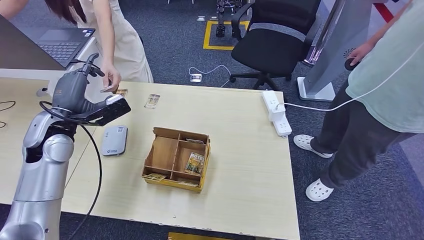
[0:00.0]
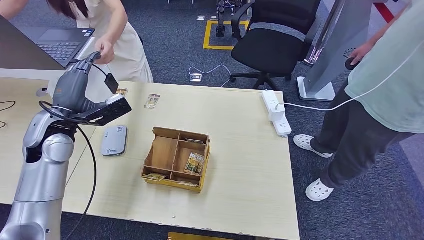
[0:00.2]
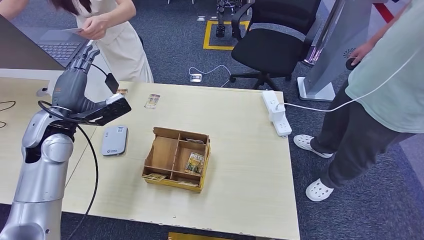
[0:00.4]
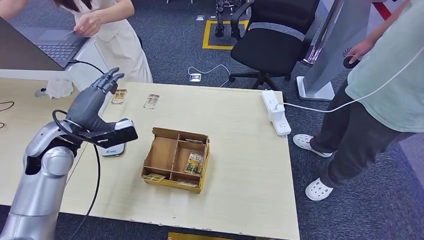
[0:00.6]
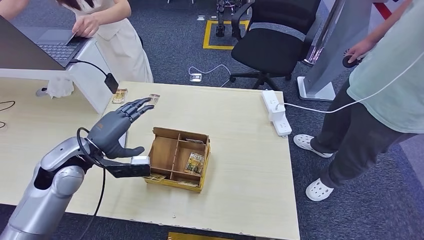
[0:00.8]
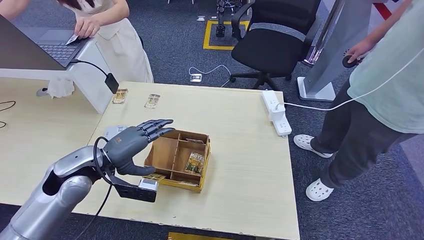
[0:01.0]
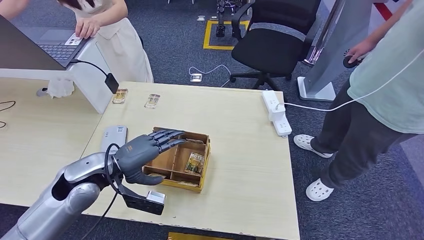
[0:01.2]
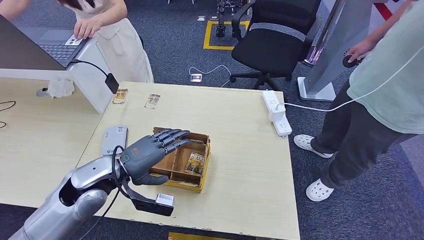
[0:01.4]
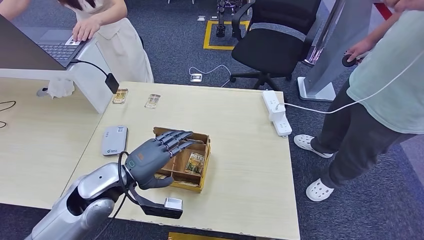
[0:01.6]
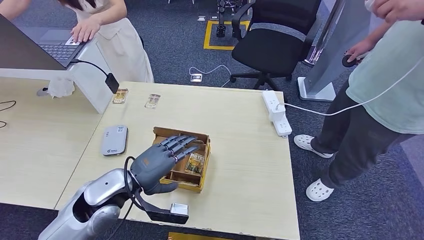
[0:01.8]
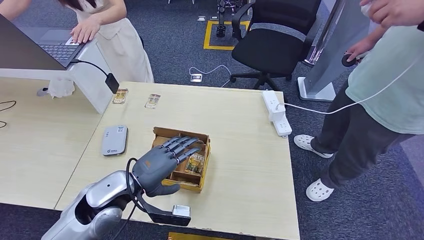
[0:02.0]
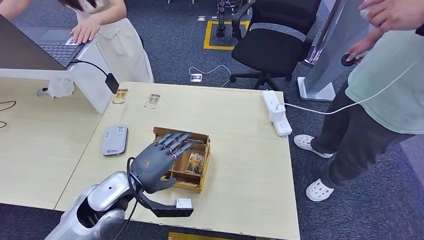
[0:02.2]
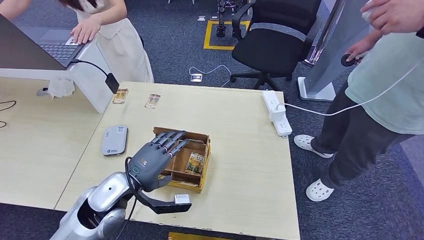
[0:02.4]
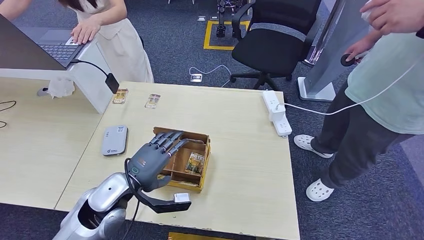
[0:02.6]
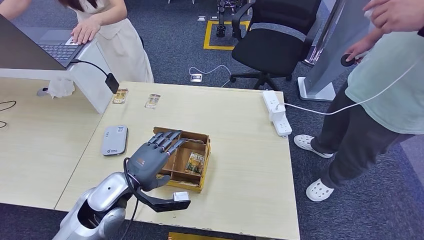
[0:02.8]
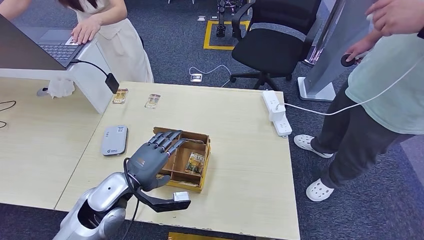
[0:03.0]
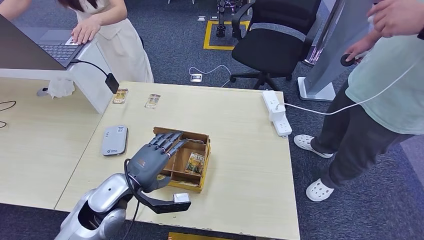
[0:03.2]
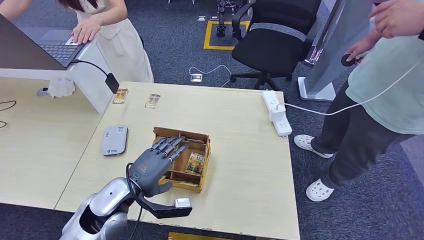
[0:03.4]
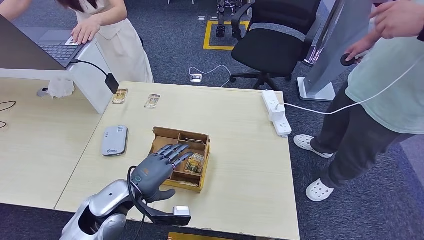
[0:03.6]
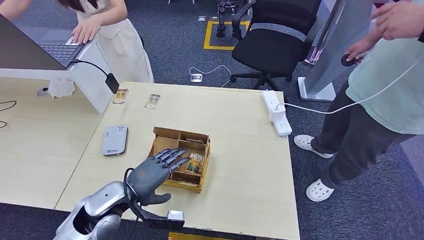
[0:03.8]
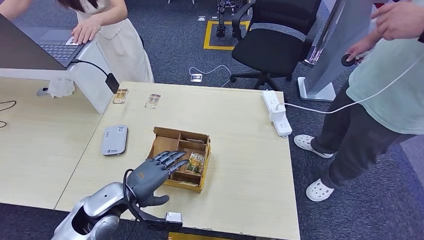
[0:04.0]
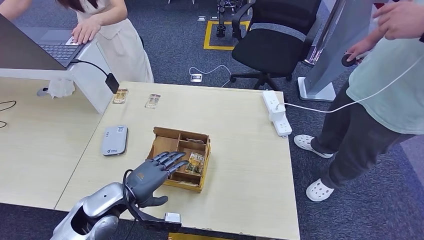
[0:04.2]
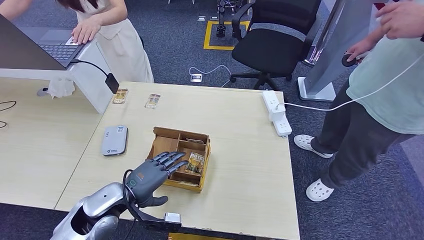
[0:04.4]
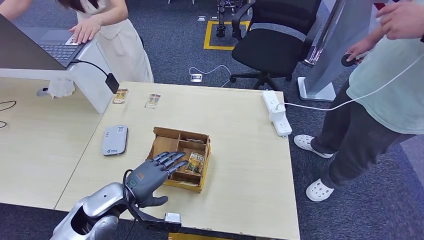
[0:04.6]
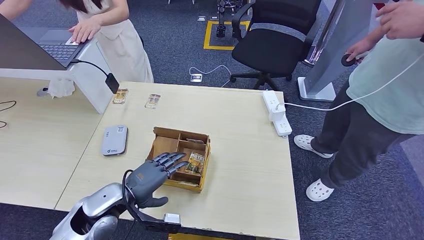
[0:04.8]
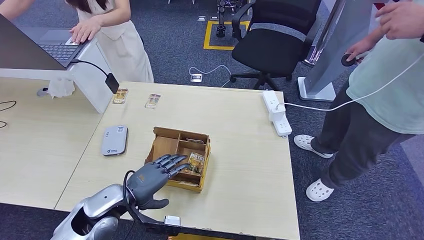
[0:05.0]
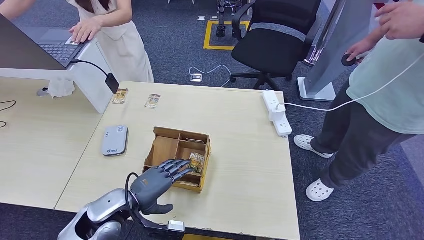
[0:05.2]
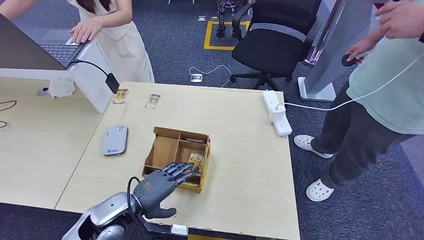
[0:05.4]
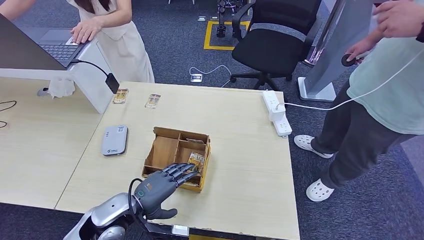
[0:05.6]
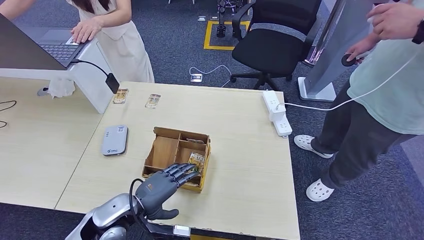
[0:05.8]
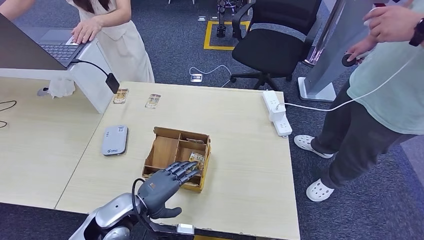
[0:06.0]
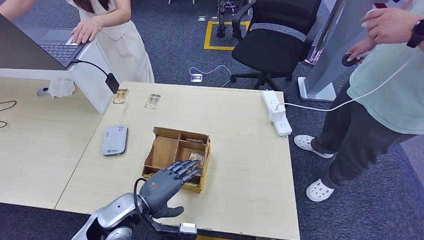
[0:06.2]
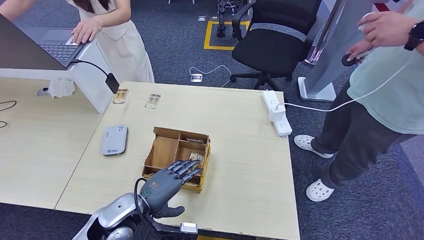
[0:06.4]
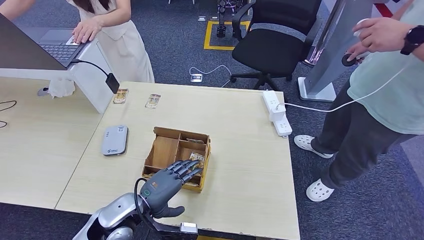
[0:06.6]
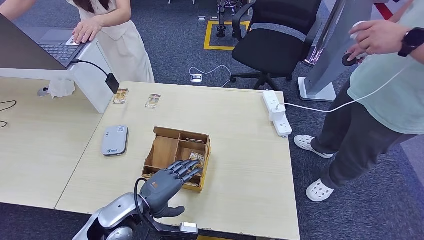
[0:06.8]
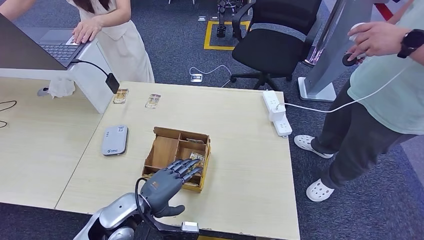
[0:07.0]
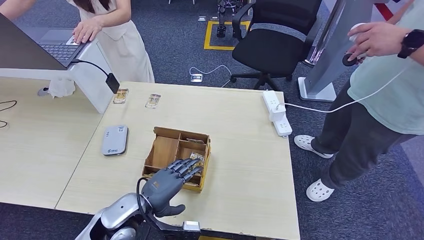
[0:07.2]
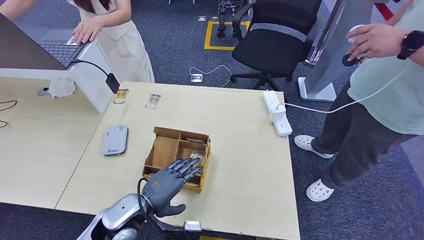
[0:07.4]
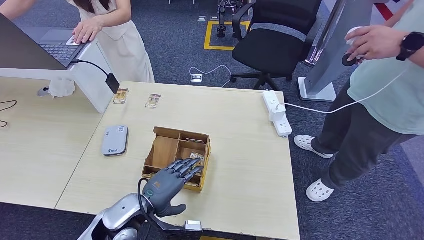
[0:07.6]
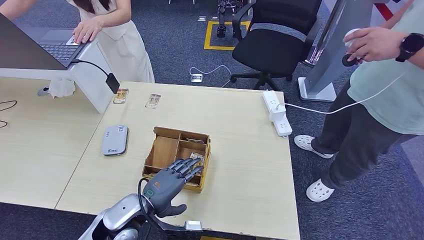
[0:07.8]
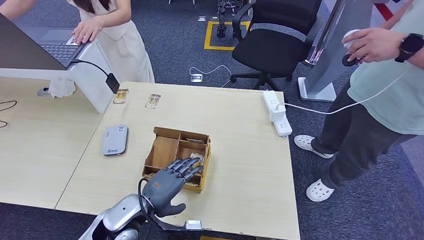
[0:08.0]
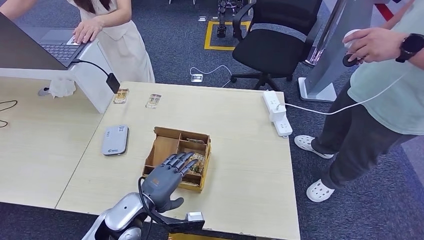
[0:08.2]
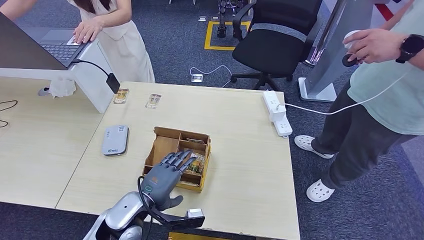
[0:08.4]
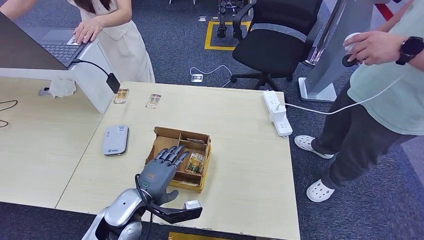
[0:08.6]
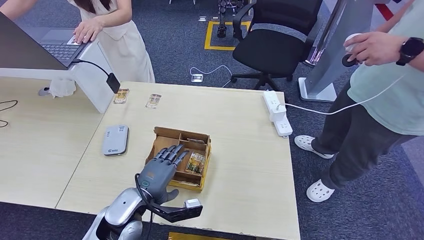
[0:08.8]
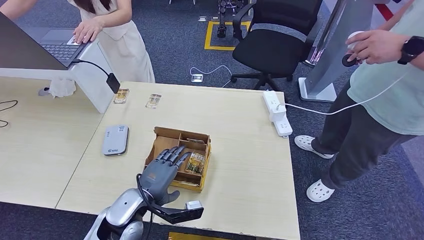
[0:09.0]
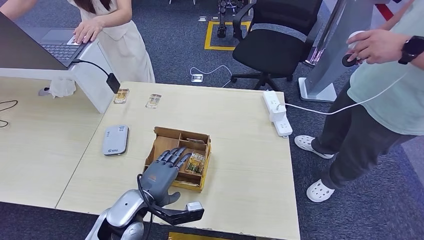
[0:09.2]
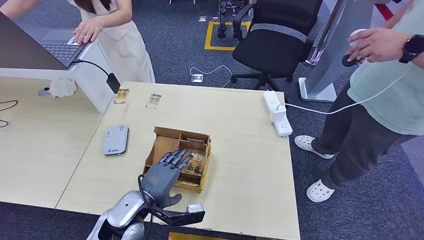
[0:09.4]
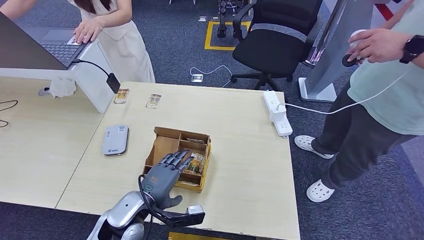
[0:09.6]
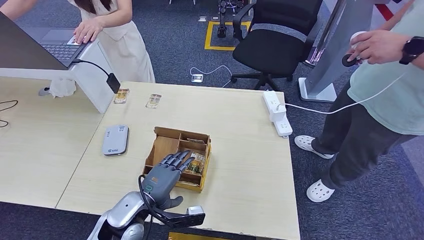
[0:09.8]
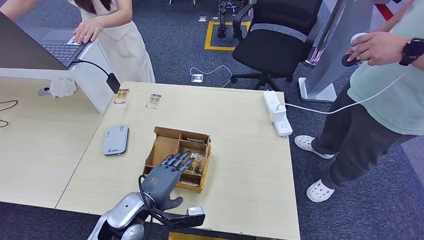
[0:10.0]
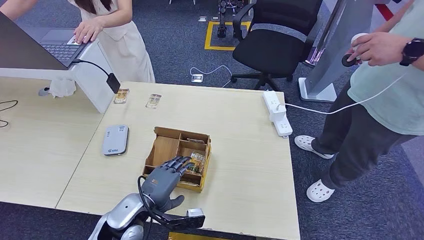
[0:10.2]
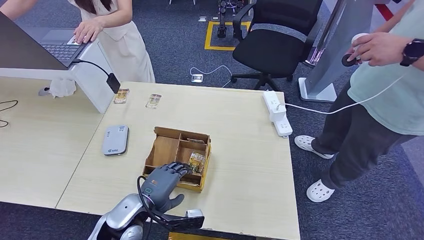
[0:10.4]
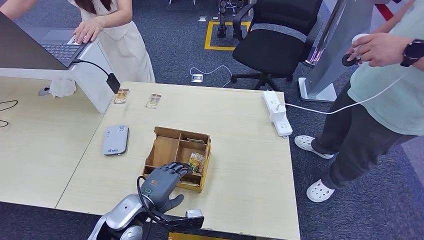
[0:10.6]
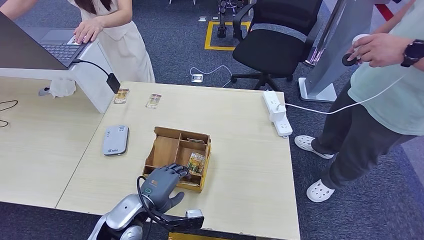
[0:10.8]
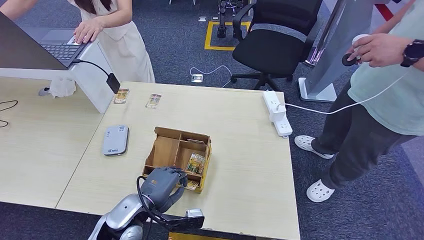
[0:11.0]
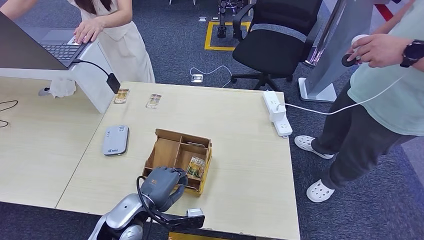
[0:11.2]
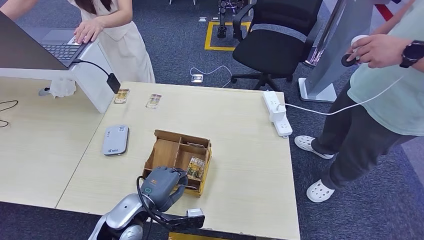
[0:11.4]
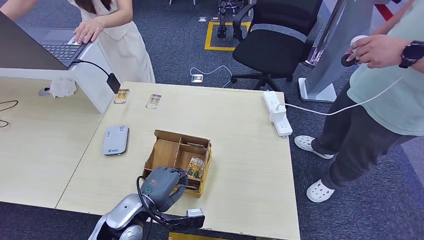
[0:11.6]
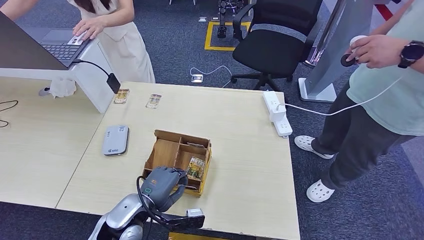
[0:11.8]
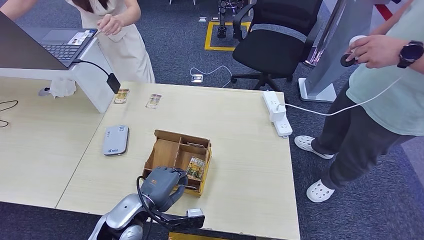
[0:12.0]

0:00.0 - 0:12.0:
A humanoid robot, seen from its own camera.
Step, 0:00.0 - 0:02.6: Hand the ID card to the person.
0:00.0 - 0:01.6: The left hand is displaced to the right, backward and downward by some 15 cm.
0:01.6 - 0:04.4: The hands make only small movements.
0:04.4 - 0:10.4: There are only small adjustments of the hands.
0:10.4 - 0:12.0: Neither hand changes place.

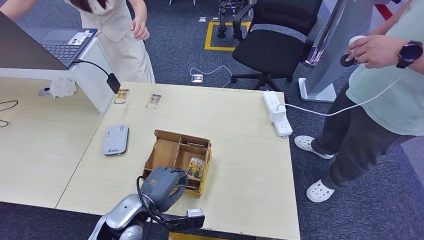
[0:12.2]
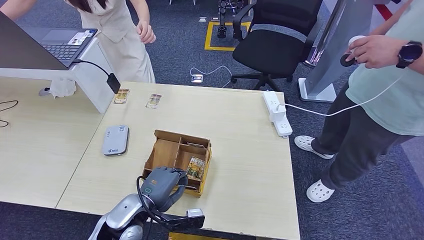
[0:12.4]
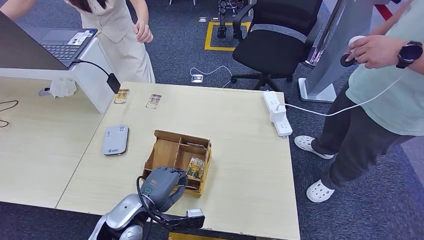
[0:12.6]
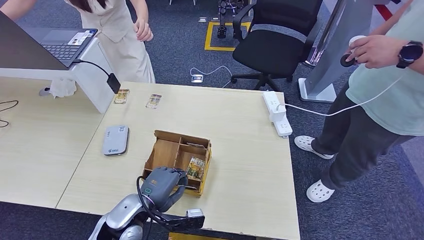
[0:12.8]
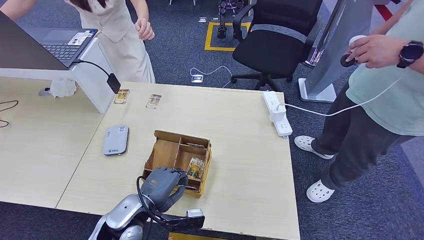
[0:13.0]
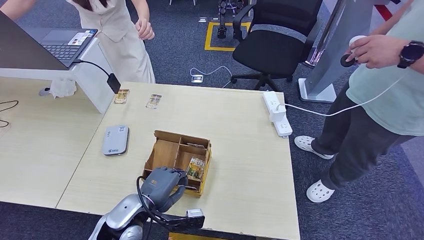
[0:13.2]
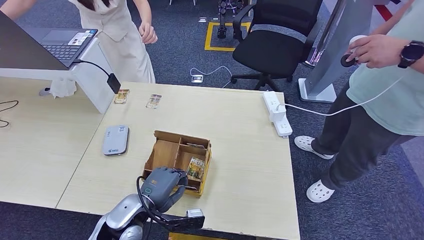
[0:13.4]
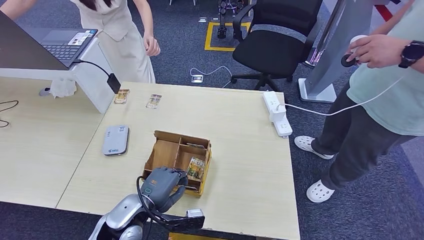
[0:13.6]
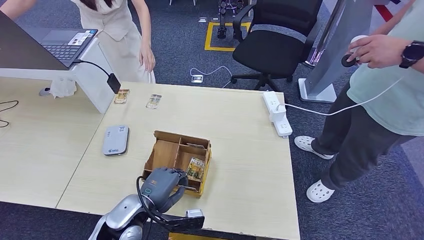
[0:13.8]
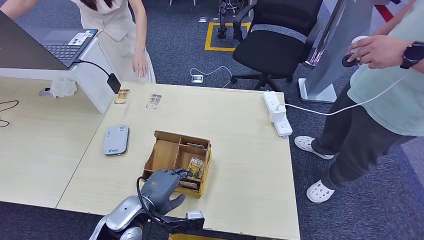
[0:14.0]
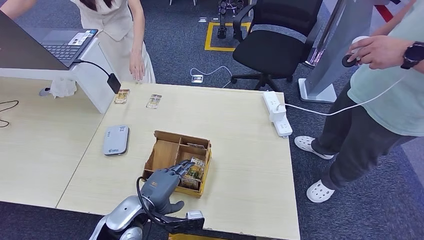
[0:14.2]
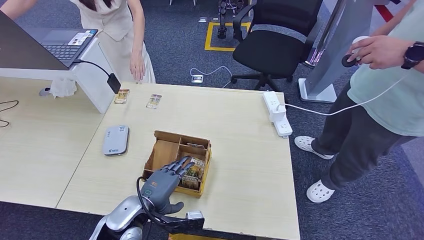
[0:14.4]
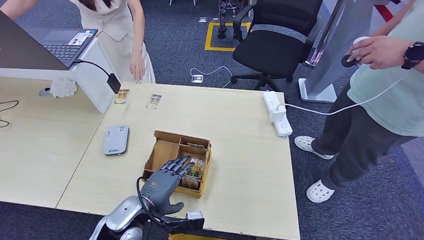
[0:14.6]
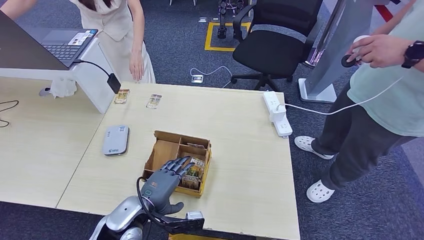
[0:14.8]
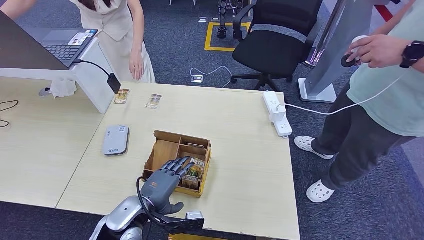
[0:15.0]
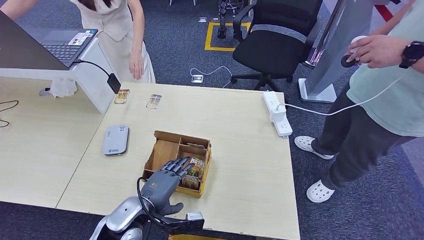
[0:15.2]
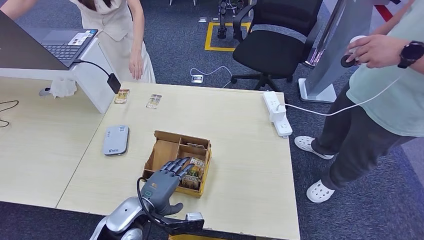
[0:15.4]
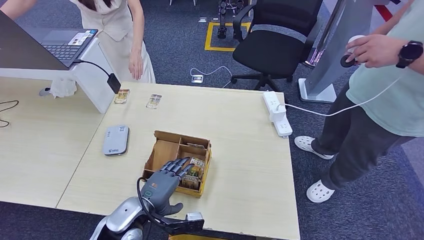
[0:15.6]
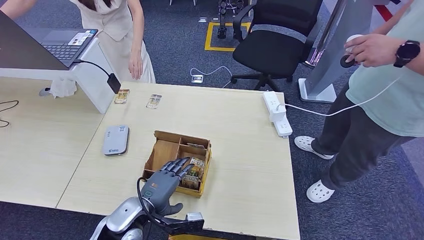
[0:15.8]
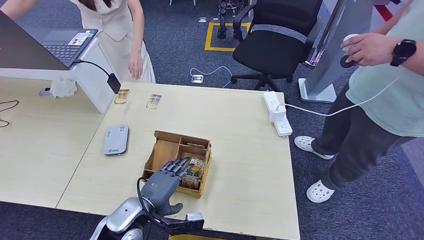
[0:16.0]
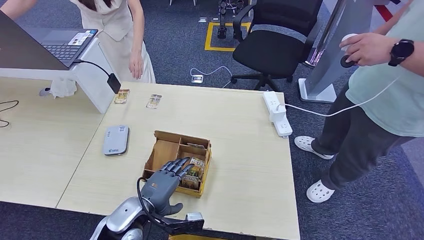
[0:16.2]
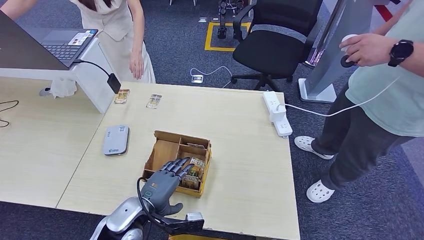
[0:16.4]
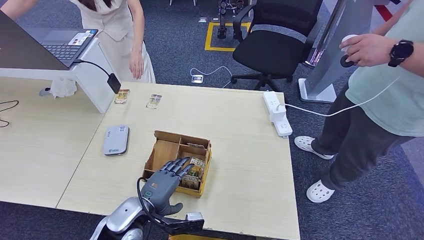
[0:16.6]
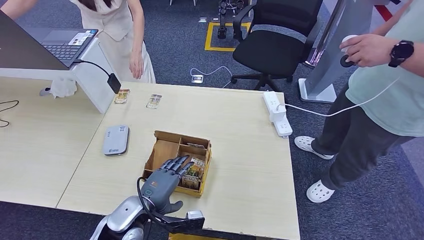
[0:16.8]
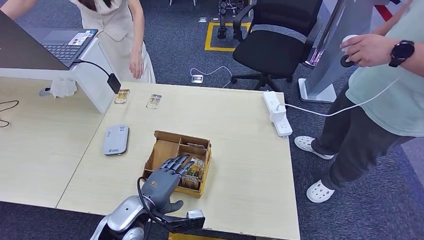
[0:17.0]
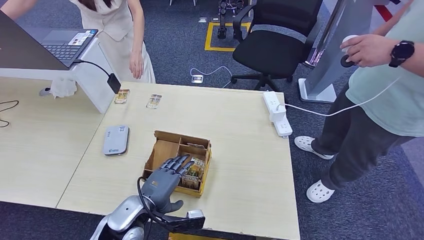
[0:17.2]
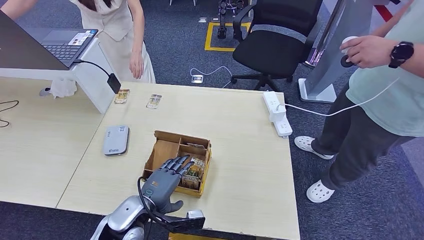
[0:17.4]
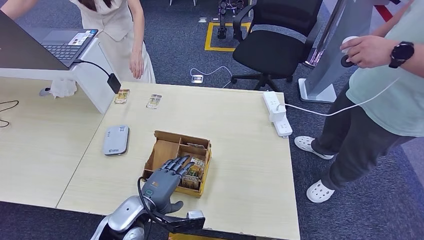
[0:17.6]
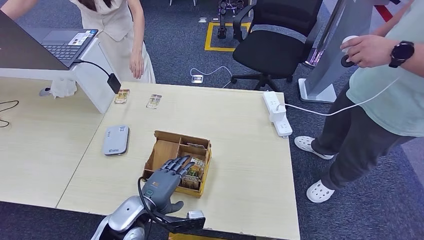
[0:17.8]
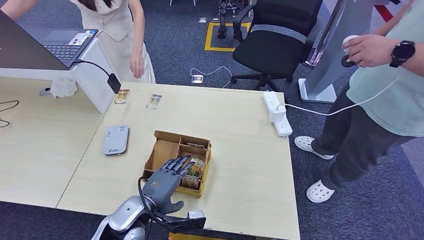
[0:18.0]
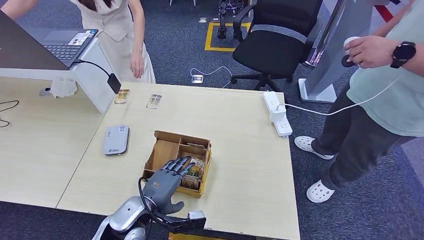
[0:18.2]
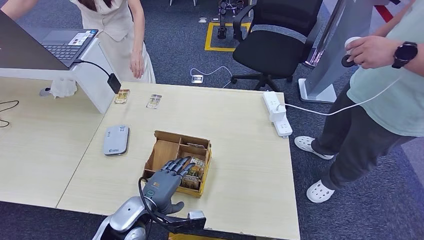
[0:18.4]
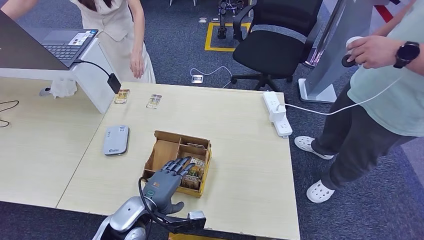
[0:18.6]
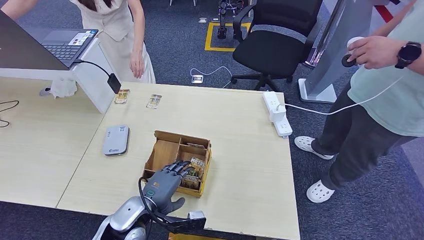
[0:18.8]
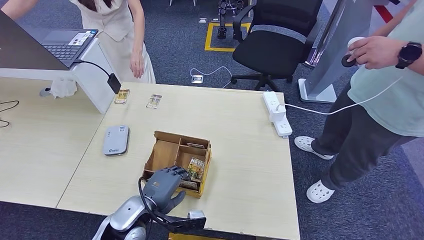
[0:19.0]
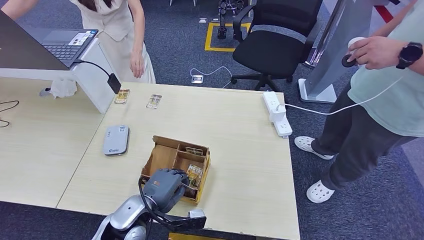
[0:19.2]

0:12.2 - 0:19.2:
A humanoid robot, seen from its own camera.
0:12.2 - 0:19.2: The two hands keep their place.
